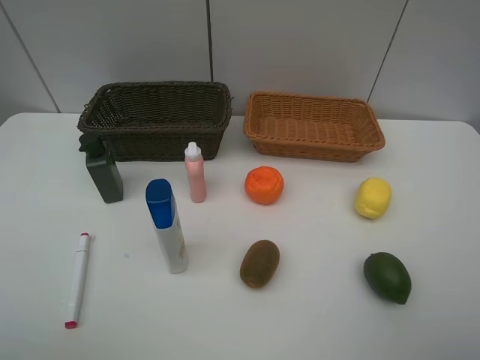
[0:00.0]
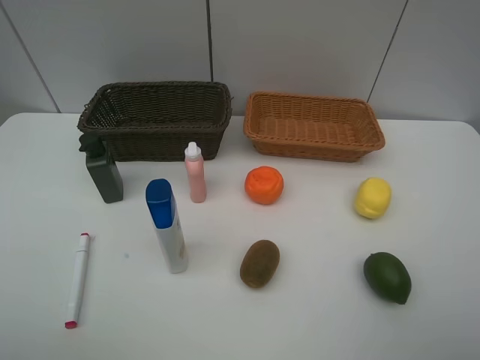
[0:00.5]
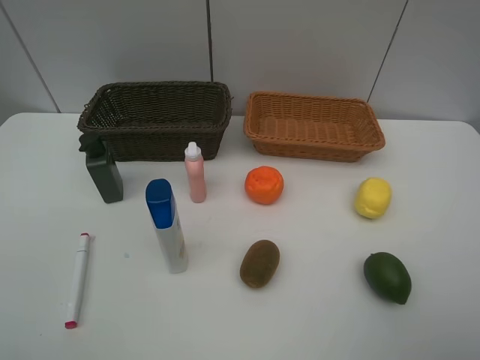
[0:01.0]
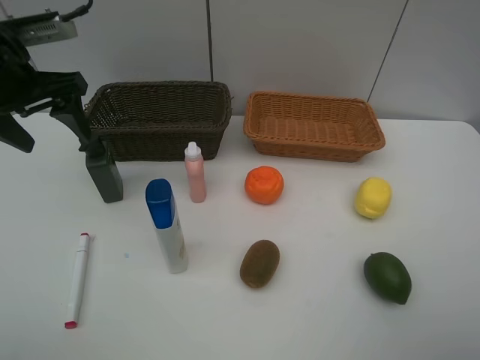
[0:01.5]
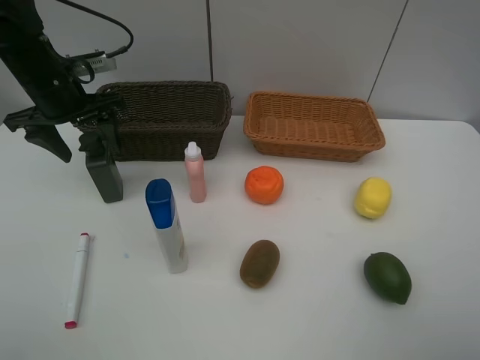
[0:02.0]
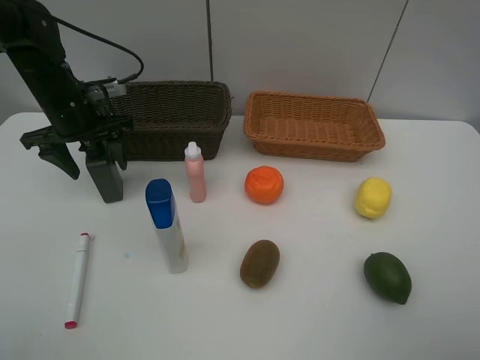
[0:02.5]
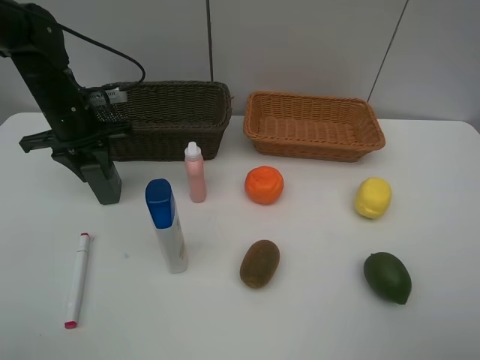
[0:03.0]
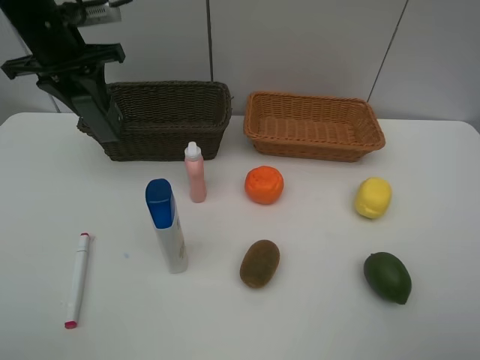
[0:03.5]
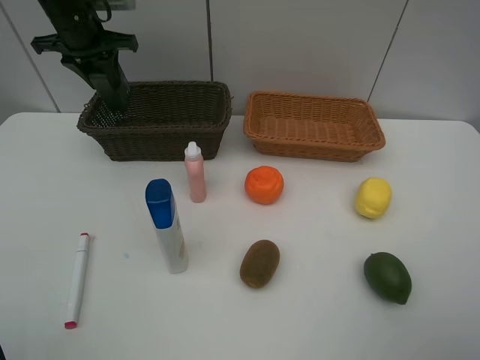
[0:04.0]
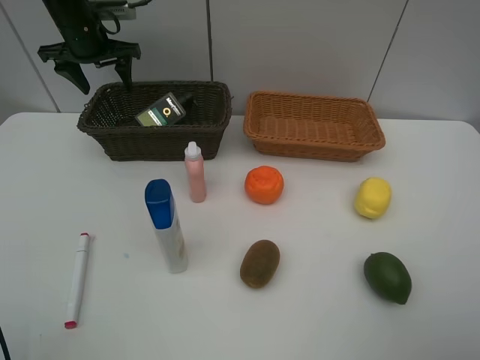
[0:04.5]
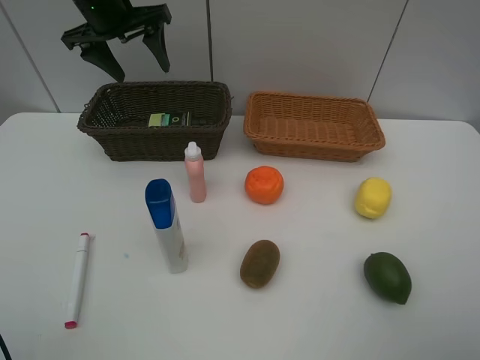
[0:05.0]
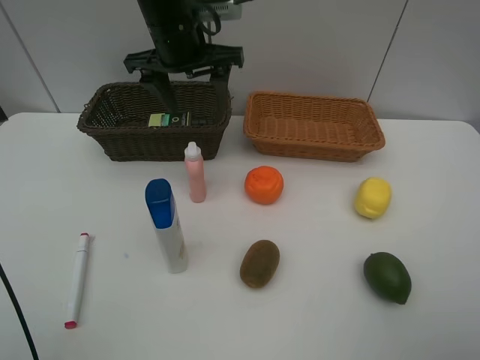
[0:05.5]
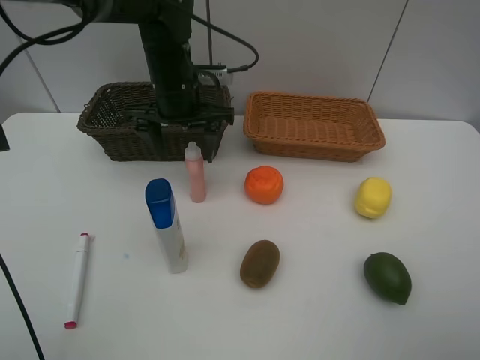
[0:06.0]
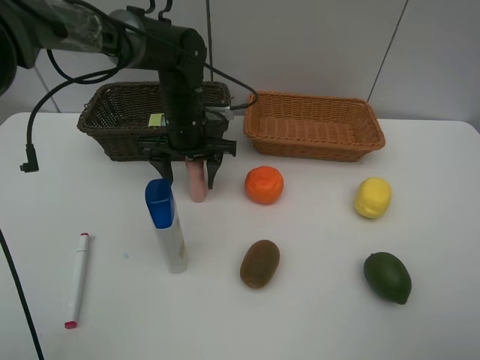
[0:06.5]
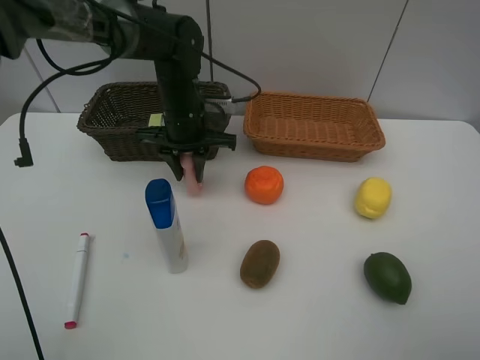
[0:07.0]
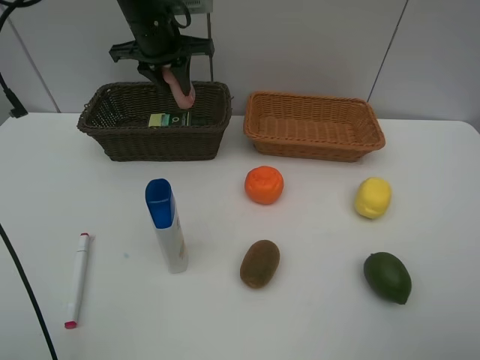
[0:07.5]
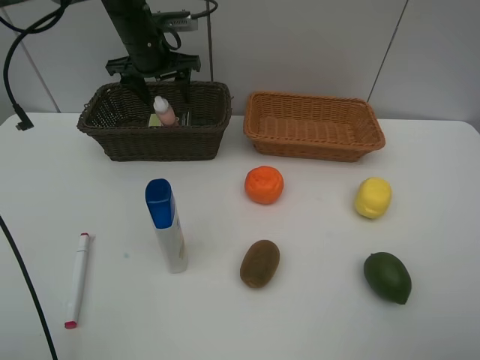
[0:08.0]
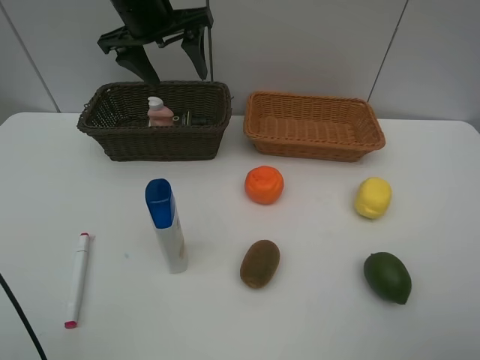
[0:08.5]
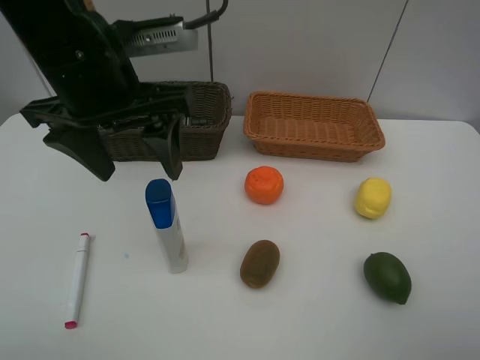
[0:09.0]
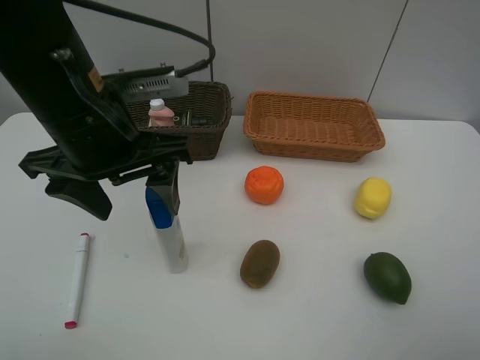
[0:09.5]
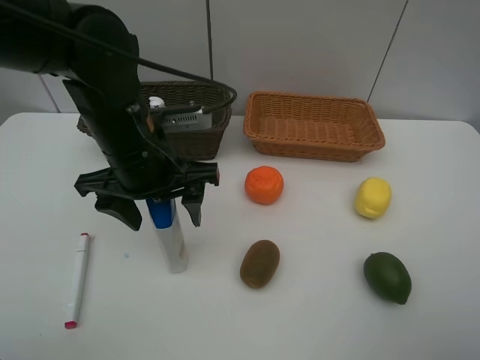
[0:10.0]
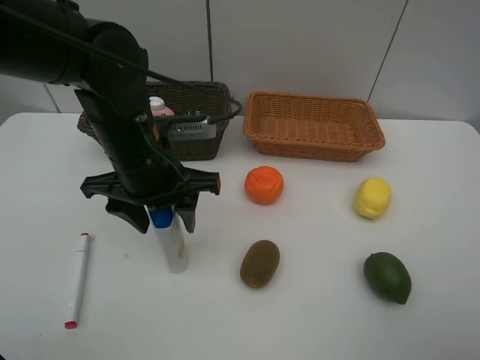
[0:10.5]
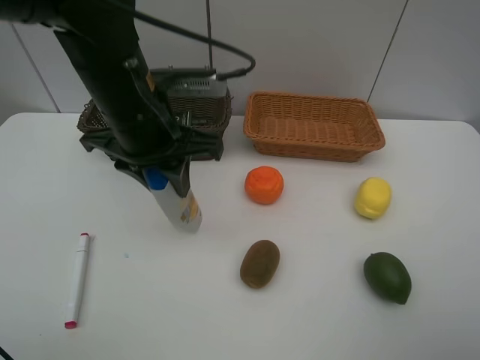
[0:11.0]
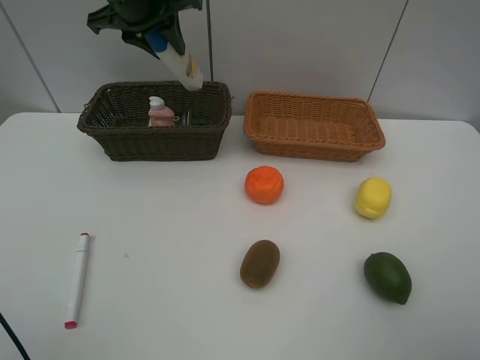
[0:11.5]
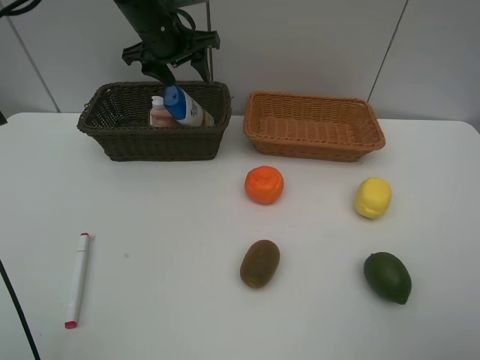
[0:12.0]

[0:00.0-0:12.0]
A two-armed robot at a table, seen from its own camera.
Task of the whole recording: Place multiple objects separately in different baskets.
Step, 0.0 to 3.0 s: Pick up the hard facial cleanser with left gripper.
Step, 3.5 to 4.0 s: Place the hard facial cleanser in the dark basket with left gripper.
Step, 4.5 to 7.0 s: Pick up the laundry detergent with left gripper.
Step, 7.5 to 8.0 s: Place the laundry detergent in the dark basket with left gripper.
Step, 8.5 to 10.5 s: Pick up the shampoo with left gripper.
0.0 to 2.0 s: The left gripper shifts about 40 cm forward.
2.0 to 4.0 s: The left gripper shifts roughly 10 cm forward, and closes.
4.0 to 6.0 s: The left gripper is displaced to the right and backward by about 20 cm, and opens up.
6.0 to 8.0 s: The left gripper shifts some 10 cm forward and to the left, reaches some 5 cm upward, then returns, and closes and opens again.
8.0 to 10.0 s: The left gripper goes roughly 25 cm backward.
10.0 to 12.0 s: The left gripper is displaced forward by approximately 20 cm, and closes, then opens again.

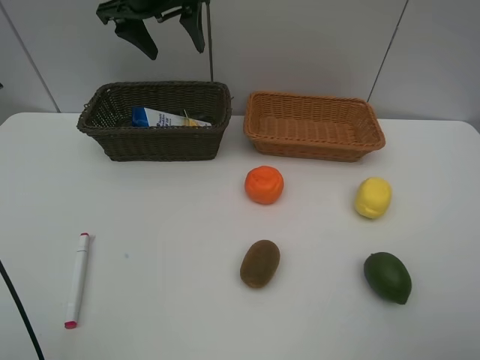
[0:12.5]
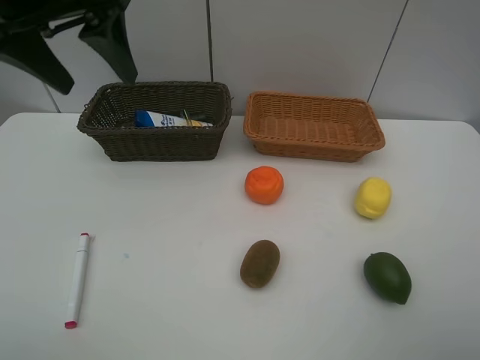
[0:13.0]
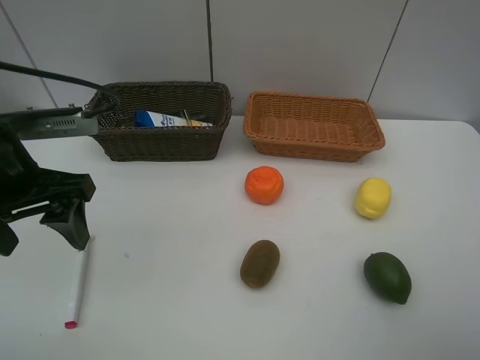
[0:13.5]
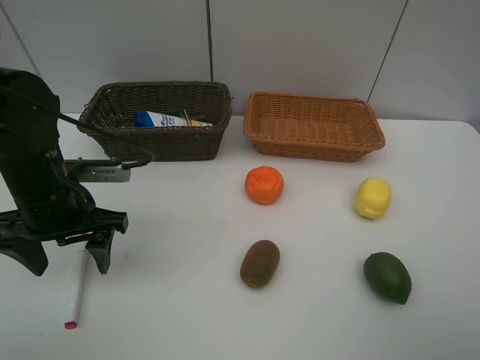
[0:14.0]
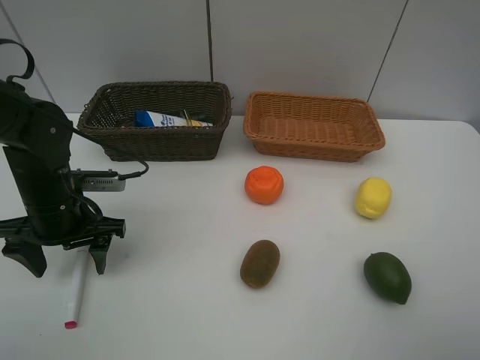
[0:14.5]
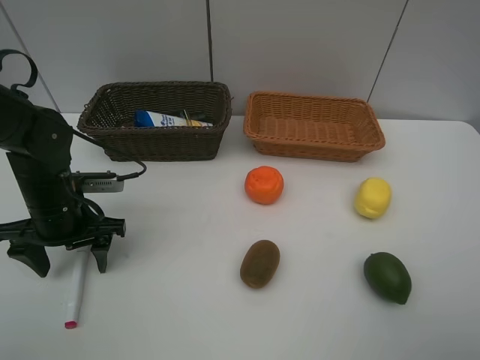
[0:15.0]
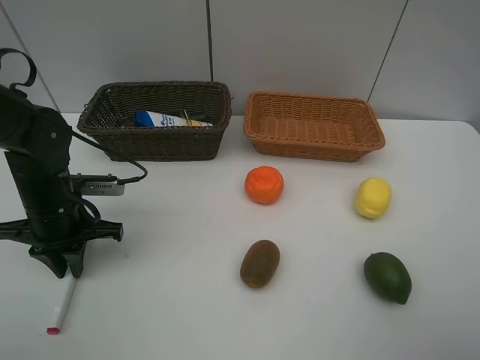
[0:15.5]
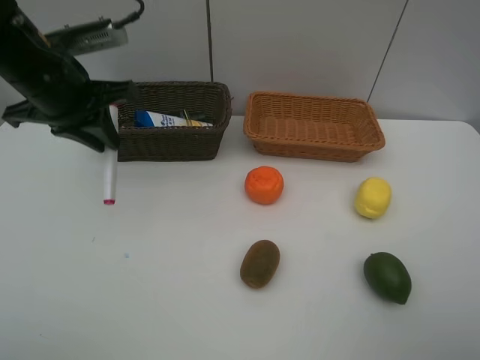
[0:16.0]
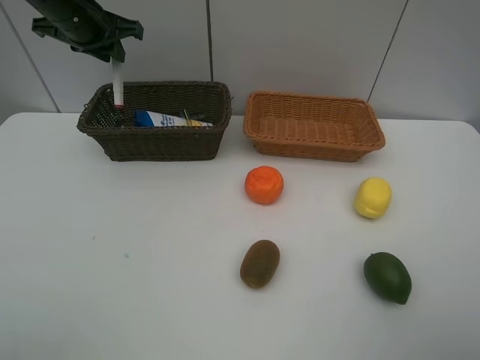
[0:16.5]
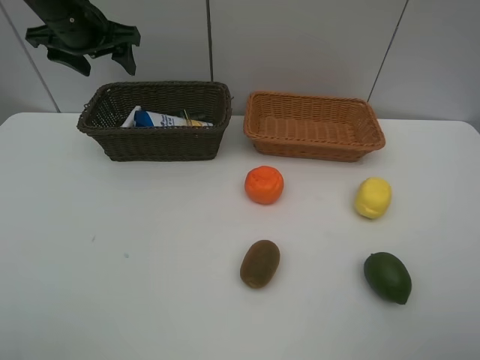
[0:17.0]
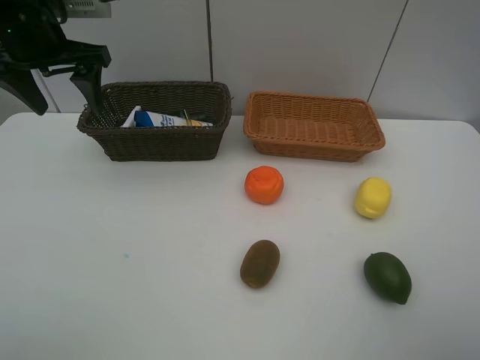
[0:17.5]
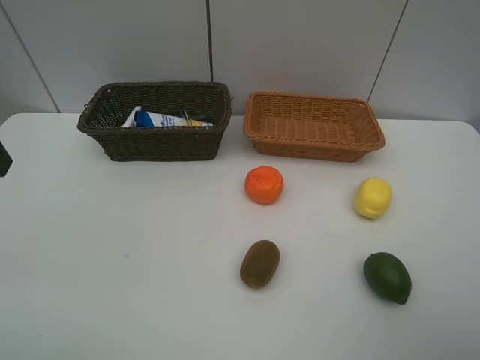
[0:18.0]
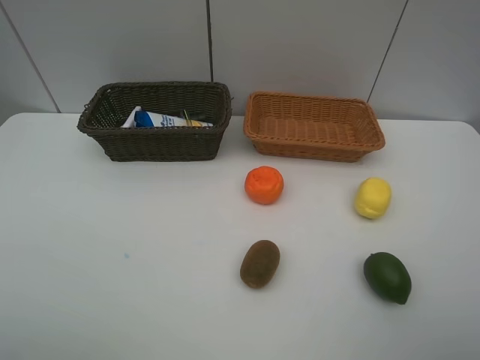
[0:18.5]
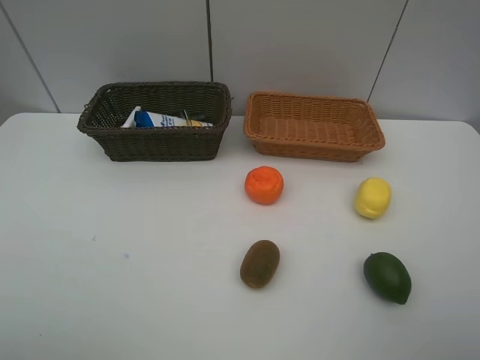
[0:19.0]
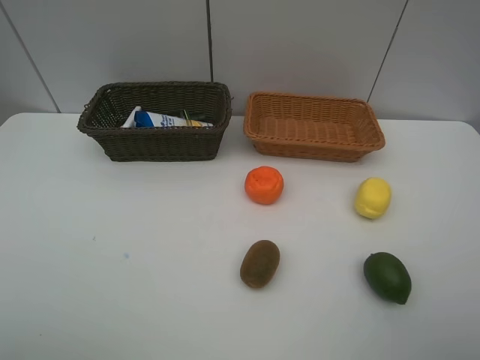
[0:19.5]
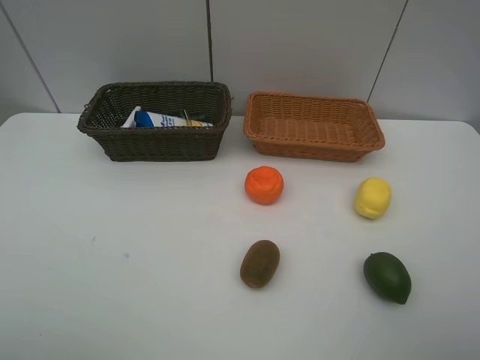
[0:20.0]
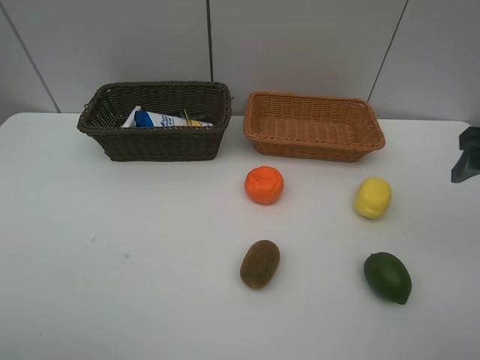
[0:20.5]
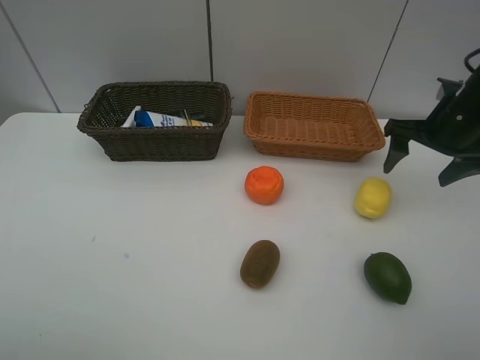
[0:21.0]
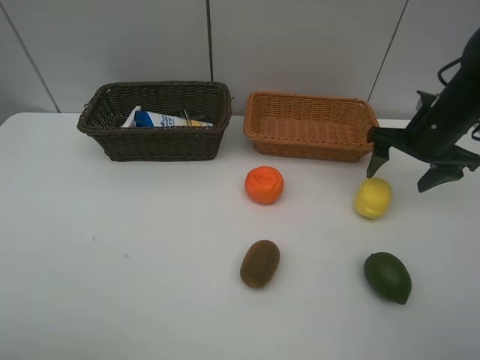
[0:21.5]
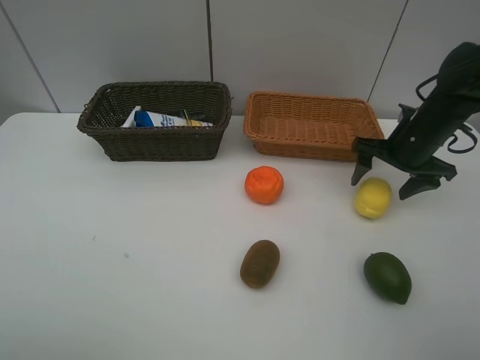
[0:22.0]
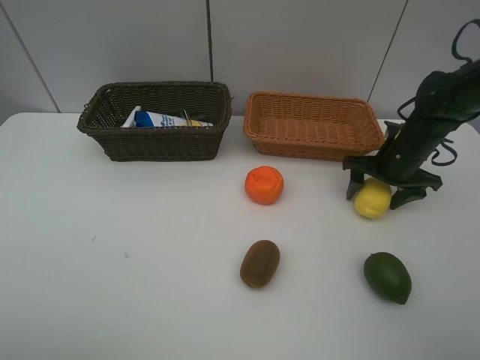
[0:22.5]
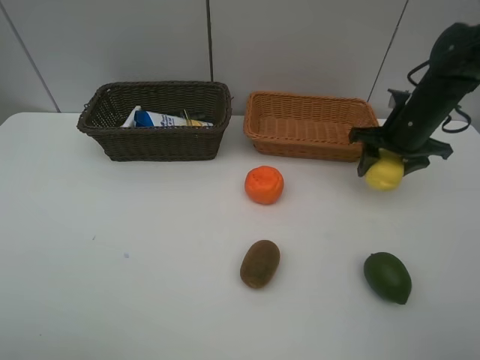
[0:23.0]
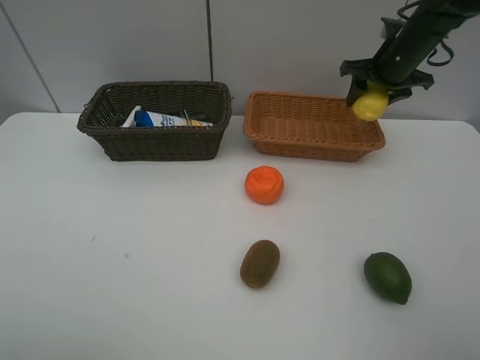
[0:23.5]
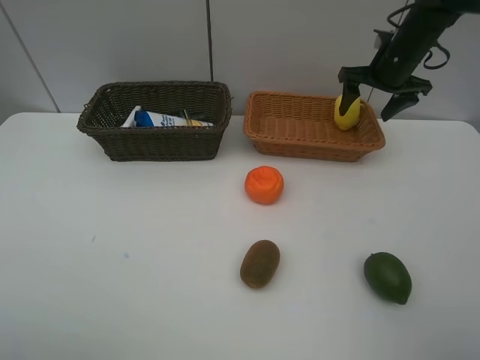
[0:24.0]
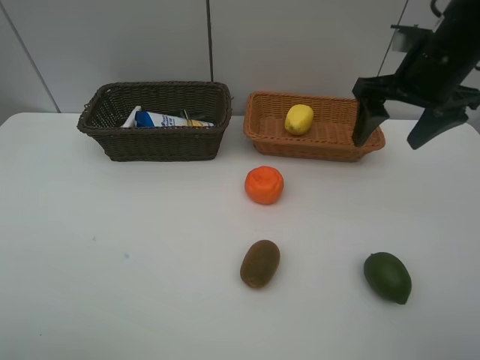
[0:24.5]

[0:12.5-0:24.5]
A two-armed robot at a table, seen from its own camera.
Task of the whole recording: Place multiple objects separately in different baskets.
Step, 12.5 to 15.5 s: Pick up the red marker with left gripper.
Step, 16.0 to 16.5 s: Place the red marker in the dark basket with left gripper.
Step, 17.0 to 22.5 s: Pick up the lemon with right gripper.
Step, 23.0 to 23.5 s: Place the lemon in the light basket with right gripper.
12.5 to 14.5 s: The left gripper goes some 30 cm downward, backward and to the left.
14.5 to 16.5 s: The left gripper goes roughly 25 cm forward and upward, and closes.
16.5 to 18.5 s: The left gripper moves backward, roughly 40 cm, and opens up.
18.5 to 20.5 s: The right gripper shifts roughly 25 cm forward.
20.5 to 22.5 s: The right gripper moves downward, forward and to the left, about 20 cm.
22.5 to 24.5 s: The right gripper is displaced upward by roughly 15 cm, reaches approximately 10 cm forward, then returns, and closes, then opens again.

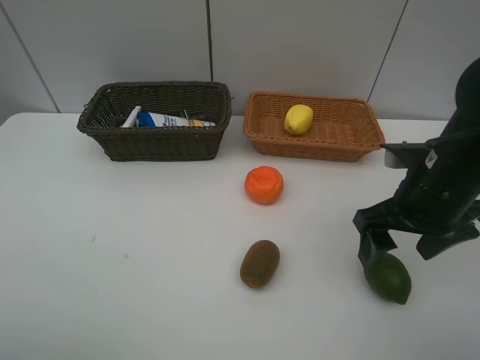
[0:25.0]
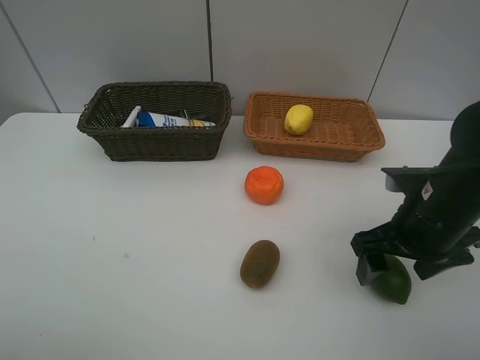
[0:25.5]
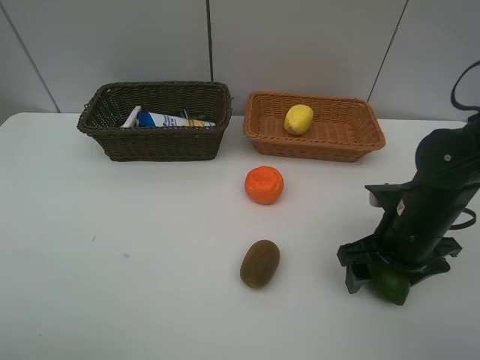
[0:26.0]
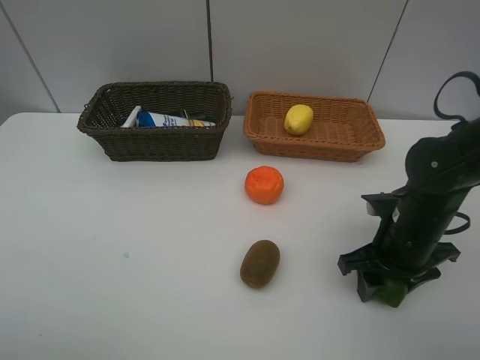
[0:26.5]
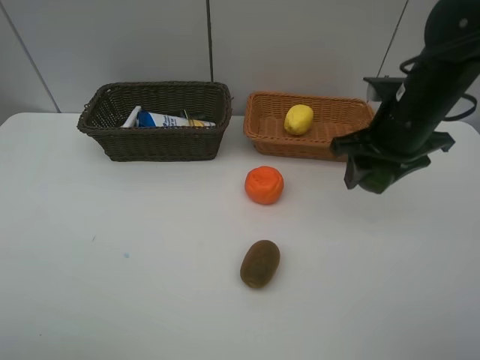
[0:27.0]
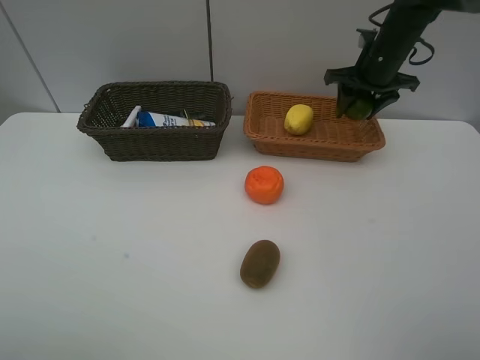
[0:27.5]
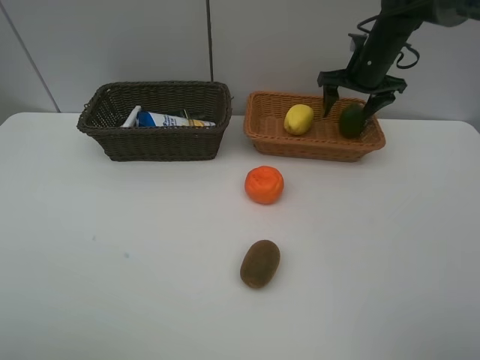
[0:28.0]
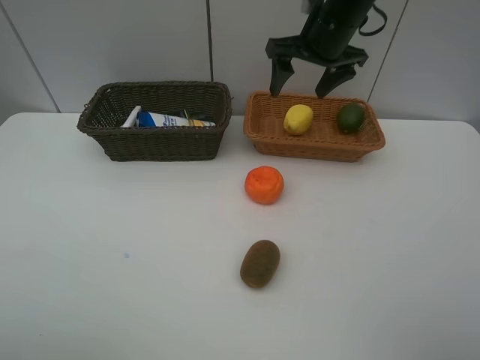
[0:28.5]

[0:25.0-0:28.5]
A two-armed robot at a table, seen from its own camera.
Task of the whole recording: Place multiple objects separately in different baskets.
Step, 25.0 to 26.5 s: Pick up the lime with right gripper.
Step, 27.0 to 28.0 s: Place the lime in the light basket with right gripper.
25.0 to 27.0 s: The right gripper goes some 10 cm forward, and closes.
27.0 to 28.5 s: The right gripper travels forward and to the left by some 15 cm, and opens its fingers.
